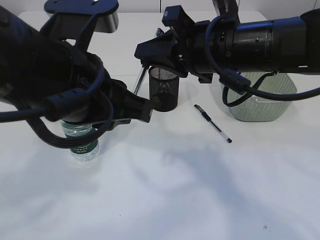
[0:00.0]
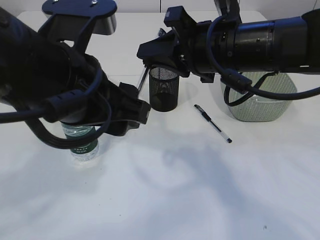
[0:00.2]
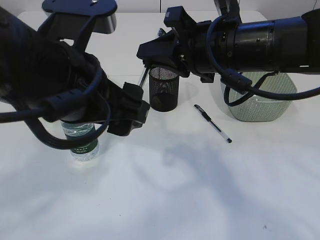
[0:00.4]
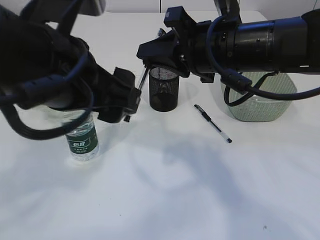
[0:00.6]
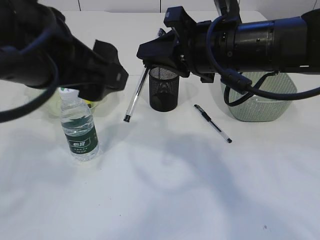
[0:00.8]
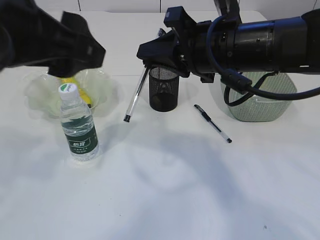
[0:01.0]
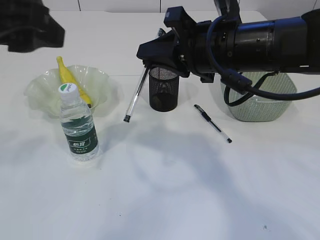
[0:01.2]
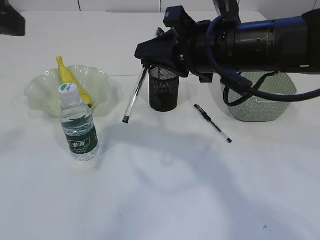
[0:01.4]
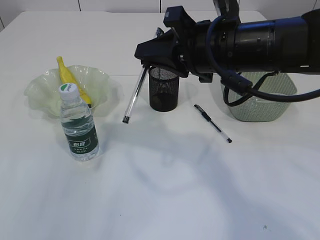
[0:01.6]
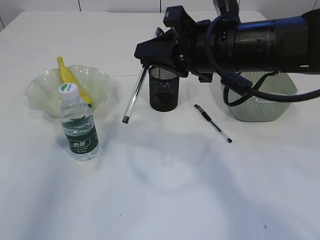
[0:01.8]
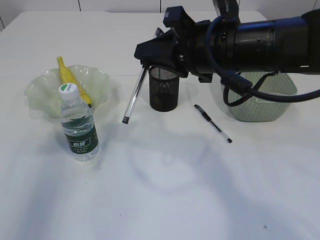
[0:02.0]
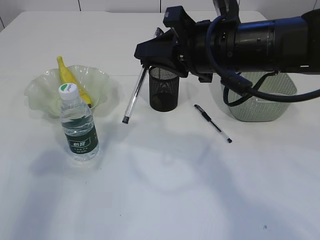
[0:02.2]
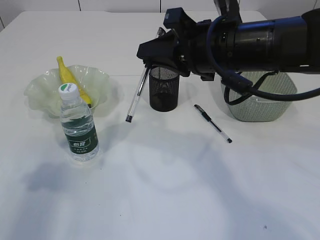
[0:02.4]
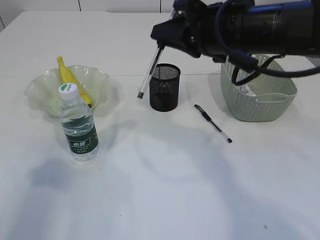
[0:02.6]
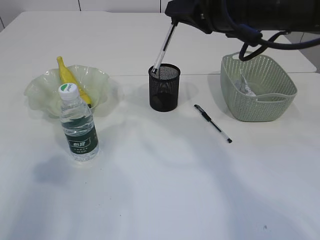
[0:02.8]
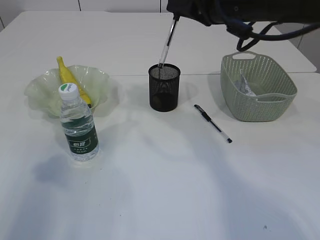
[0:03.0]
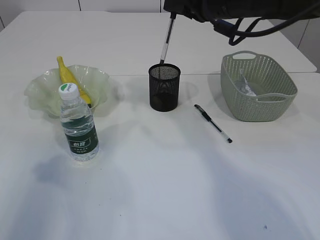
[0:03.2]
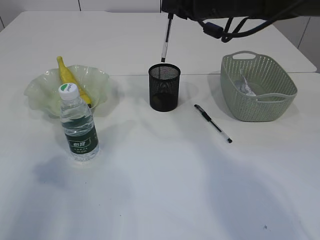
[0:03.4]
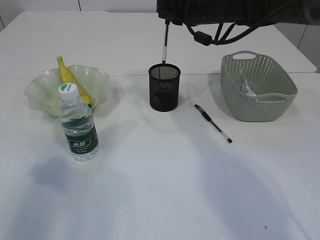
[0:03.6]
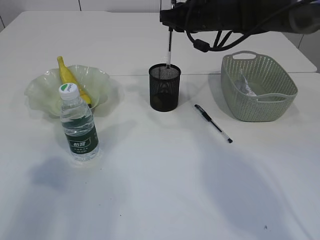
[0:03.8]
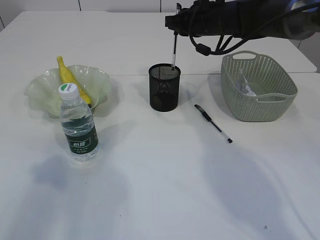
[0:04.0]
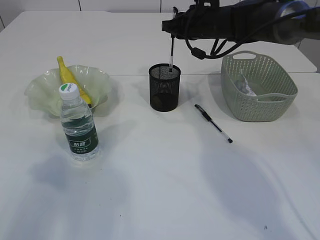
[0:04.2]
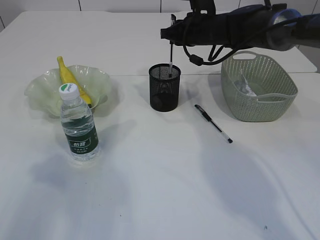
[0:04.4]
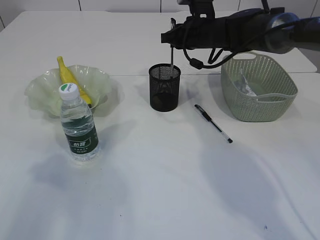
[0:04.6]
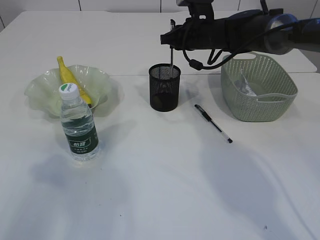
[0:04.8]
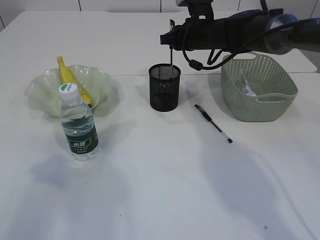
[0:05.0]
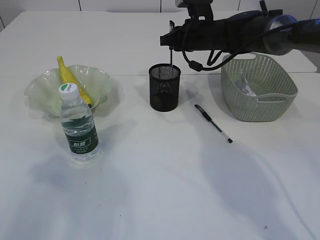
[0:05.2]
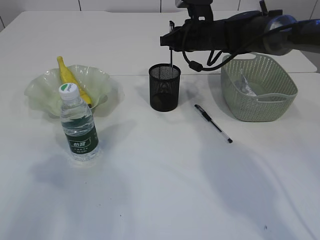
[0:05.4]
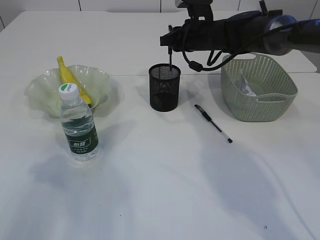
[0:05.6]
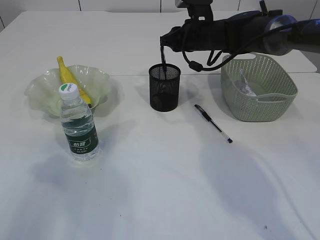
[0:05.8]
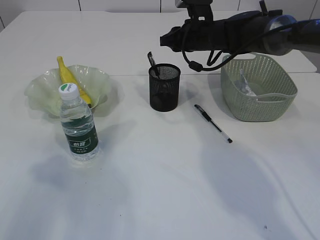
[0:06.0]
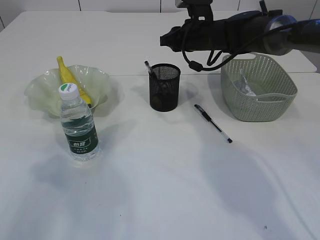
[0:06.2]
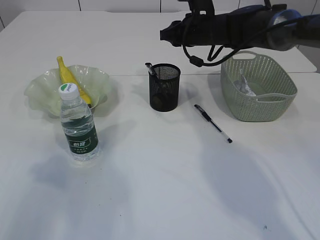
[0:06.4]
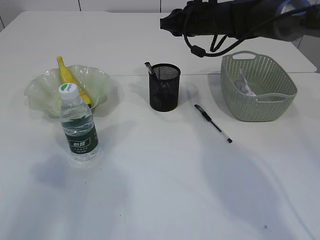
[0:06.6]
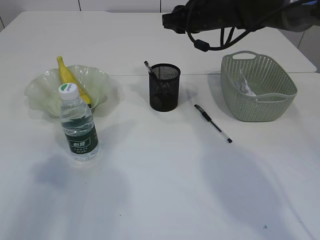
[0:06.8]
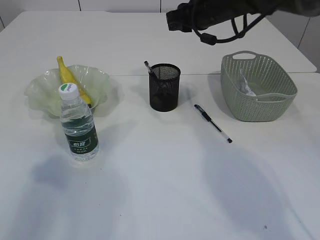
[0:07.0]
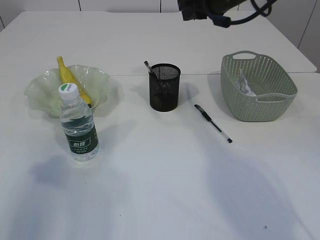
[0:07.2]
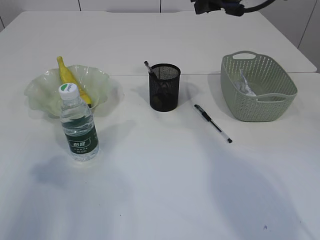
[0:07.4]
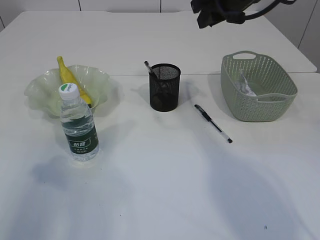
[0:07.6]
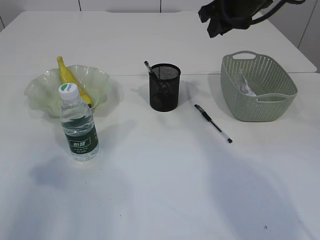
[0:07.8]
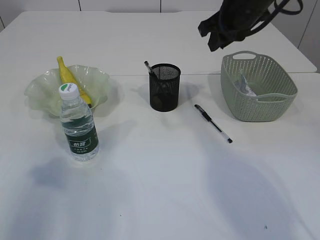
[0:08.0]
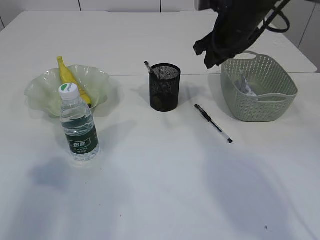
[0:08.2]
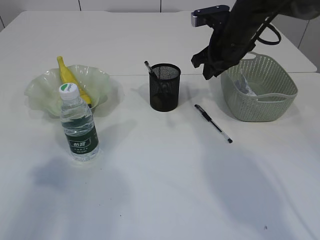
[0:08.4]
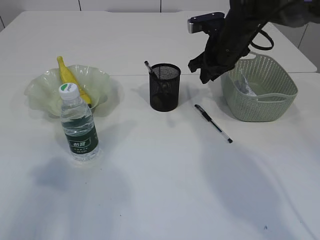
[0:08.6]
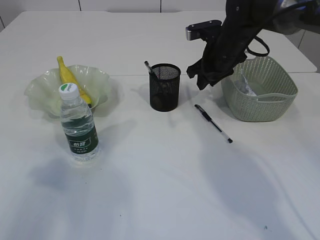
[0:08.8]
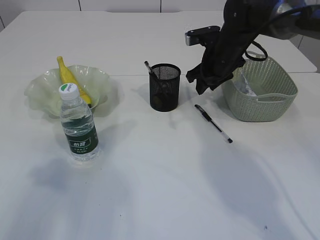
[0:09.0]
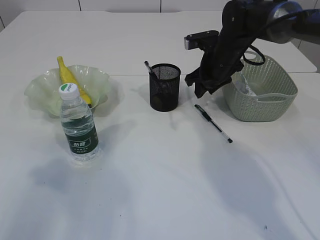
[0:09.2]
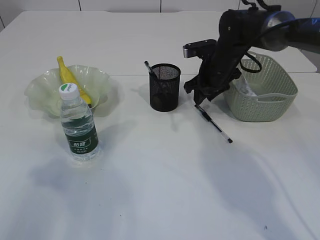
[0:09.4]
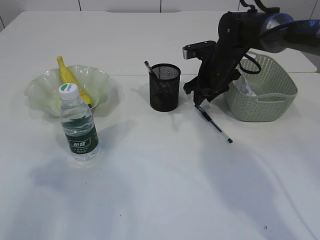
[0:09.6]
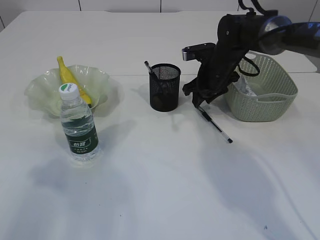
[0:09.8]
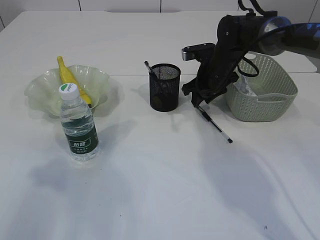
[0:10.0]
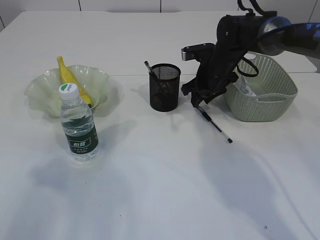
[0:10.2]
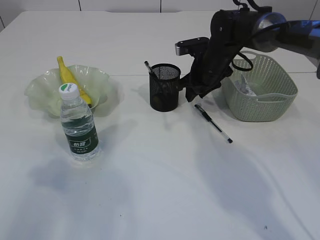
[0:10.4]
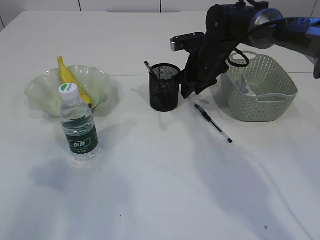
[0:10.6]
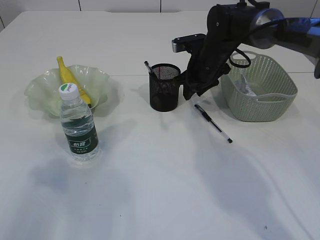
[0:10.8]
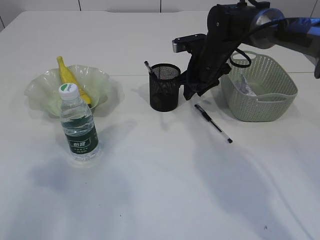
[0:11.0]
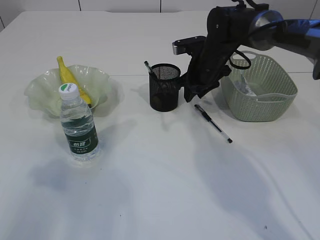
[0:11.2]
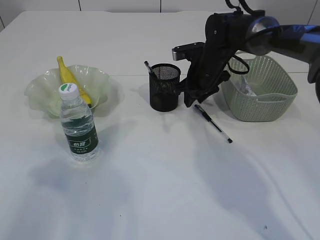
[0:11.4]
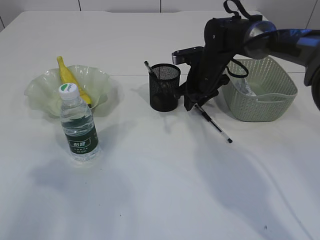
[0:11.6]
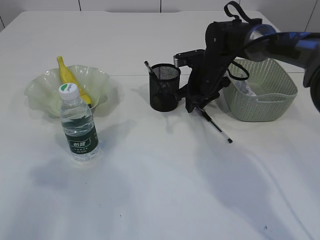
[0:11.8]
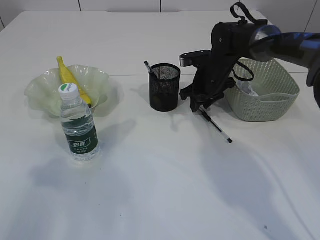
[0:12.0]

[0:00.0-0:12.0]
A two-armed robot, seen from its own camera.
Step, 0:00.8 to 0:06.2: Place the pen into the pen holder.
0:00.0 to 0:01.6: The left gripper goes about 20 cm to the left and upward, and opens.
0:01.6 to 0:03.0: The left gripper shifts roughly 10 cm downward and to the left; the right gripper goes about 5 cm forward.
0:03.0 to 0:04.4: The right gripper goes some 20 cm forward and downward.
0:04.4 to 0:06.0: The grippers make only small movements.
0:06.0 to 0:07.6: The right gripper travels upward and backward by approximately 15 cm.
0:07.6 to 0:09.0: The right gripper is displaced downward by some 15 cm.
0:09.0 to 0:12.0: The grippers move only a little.

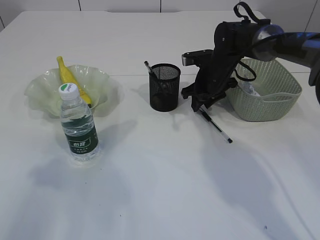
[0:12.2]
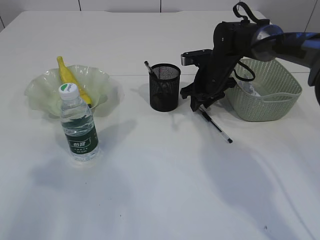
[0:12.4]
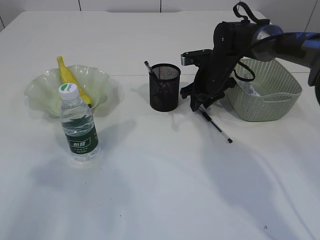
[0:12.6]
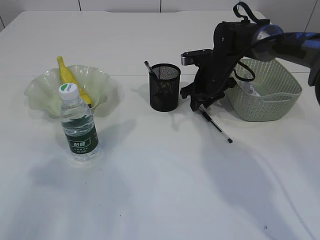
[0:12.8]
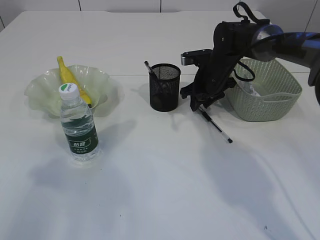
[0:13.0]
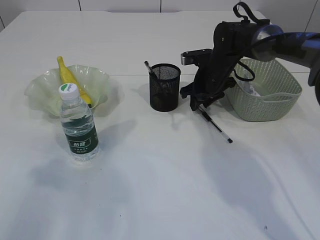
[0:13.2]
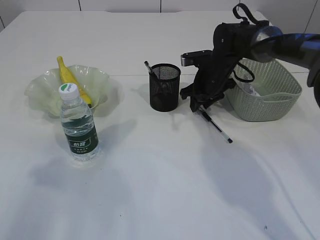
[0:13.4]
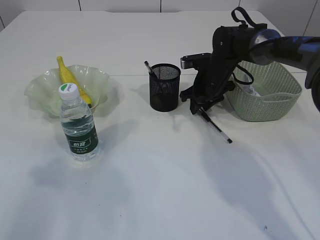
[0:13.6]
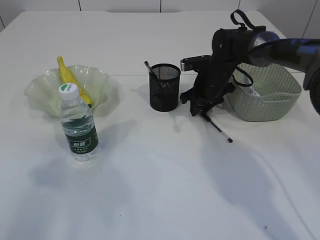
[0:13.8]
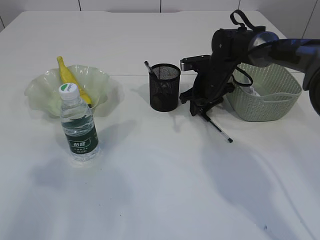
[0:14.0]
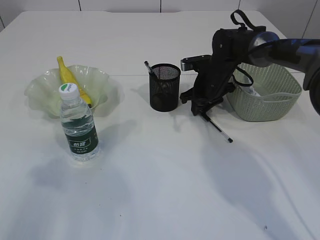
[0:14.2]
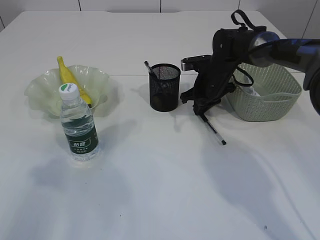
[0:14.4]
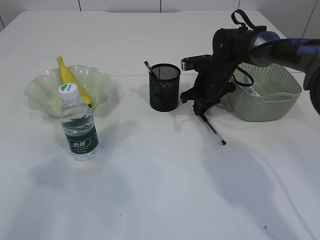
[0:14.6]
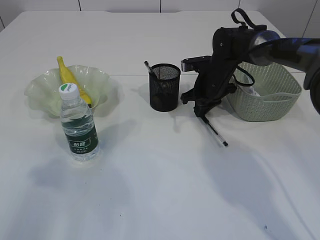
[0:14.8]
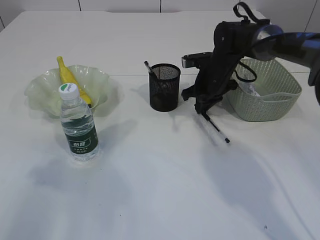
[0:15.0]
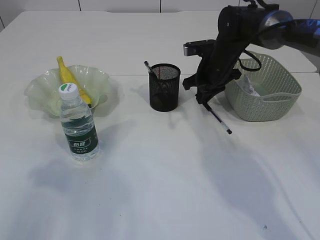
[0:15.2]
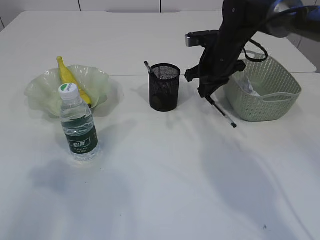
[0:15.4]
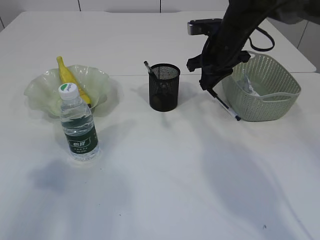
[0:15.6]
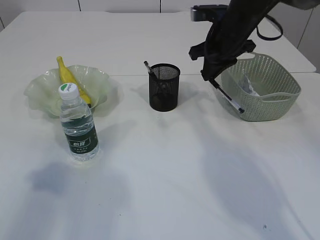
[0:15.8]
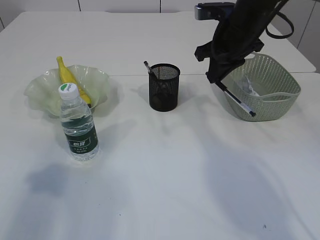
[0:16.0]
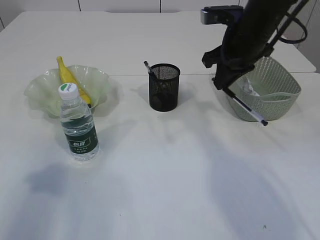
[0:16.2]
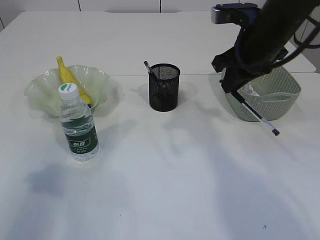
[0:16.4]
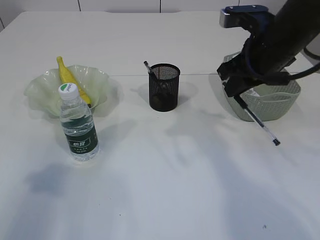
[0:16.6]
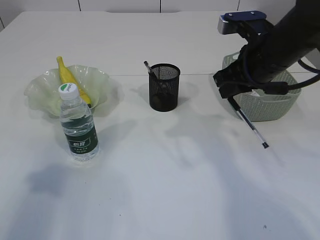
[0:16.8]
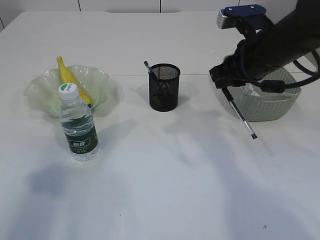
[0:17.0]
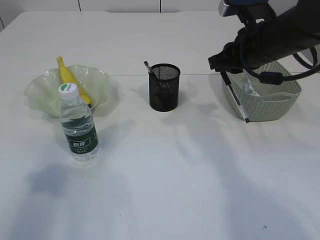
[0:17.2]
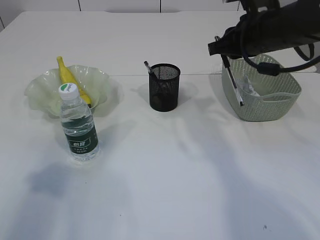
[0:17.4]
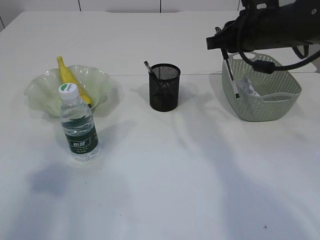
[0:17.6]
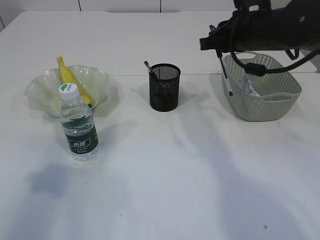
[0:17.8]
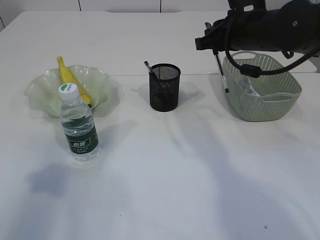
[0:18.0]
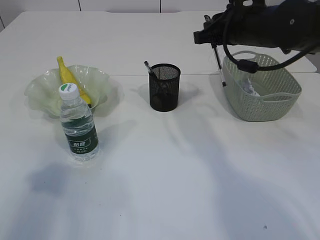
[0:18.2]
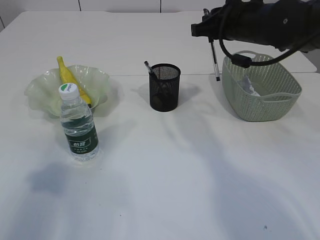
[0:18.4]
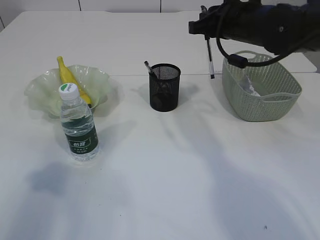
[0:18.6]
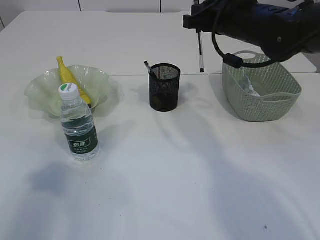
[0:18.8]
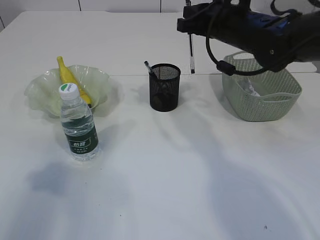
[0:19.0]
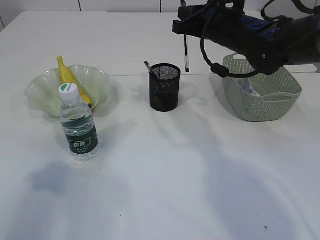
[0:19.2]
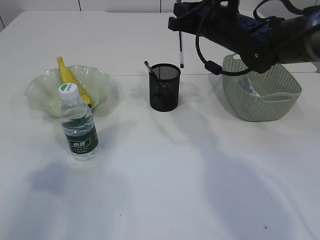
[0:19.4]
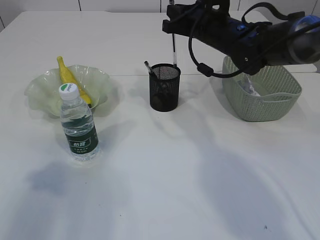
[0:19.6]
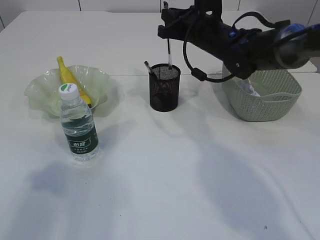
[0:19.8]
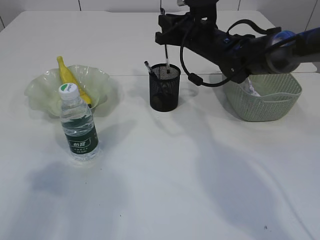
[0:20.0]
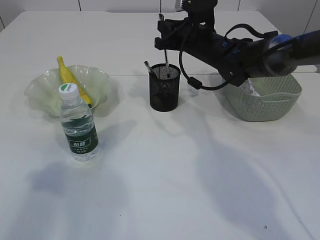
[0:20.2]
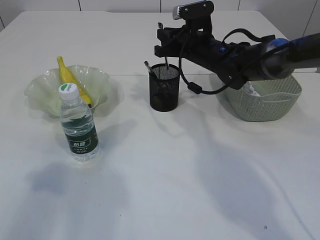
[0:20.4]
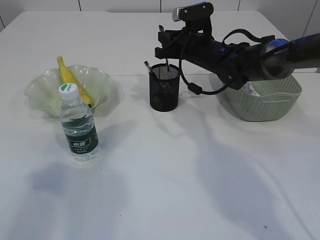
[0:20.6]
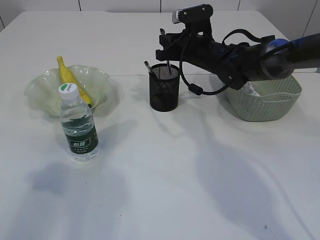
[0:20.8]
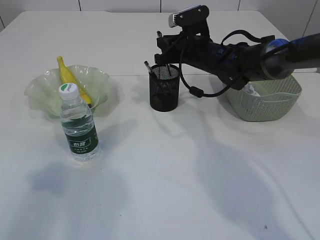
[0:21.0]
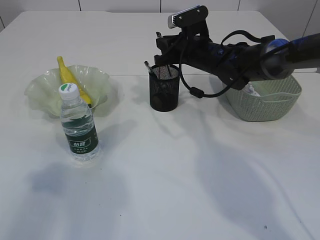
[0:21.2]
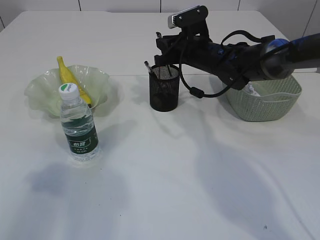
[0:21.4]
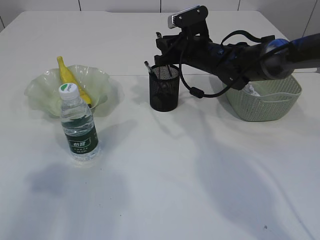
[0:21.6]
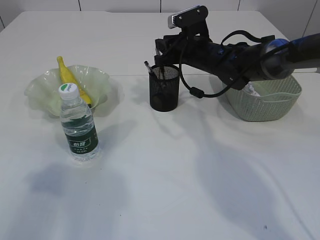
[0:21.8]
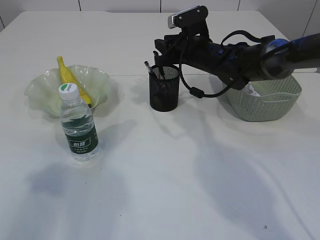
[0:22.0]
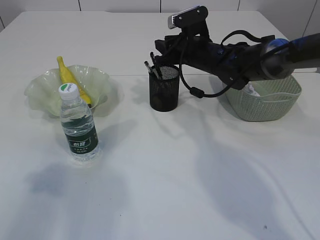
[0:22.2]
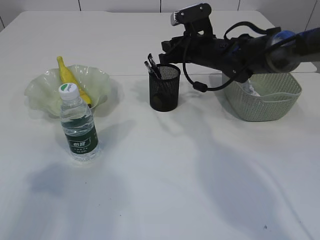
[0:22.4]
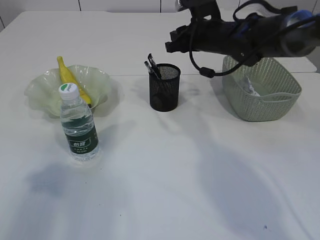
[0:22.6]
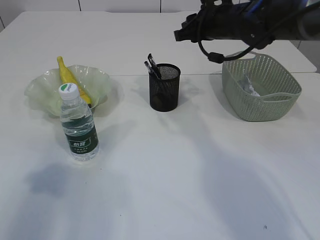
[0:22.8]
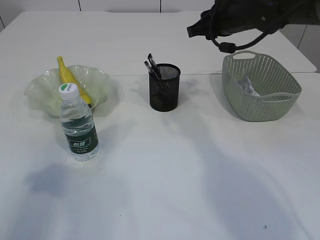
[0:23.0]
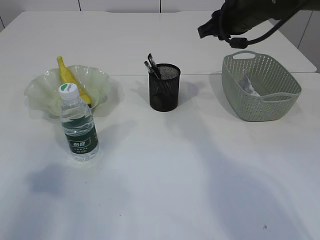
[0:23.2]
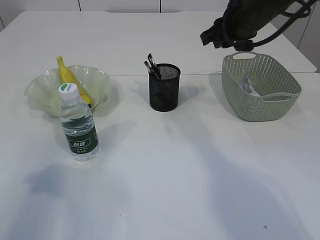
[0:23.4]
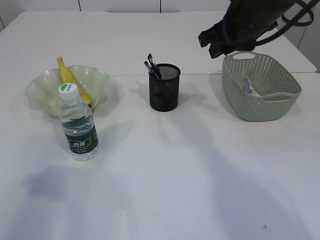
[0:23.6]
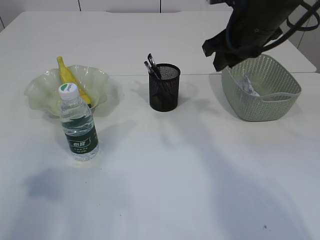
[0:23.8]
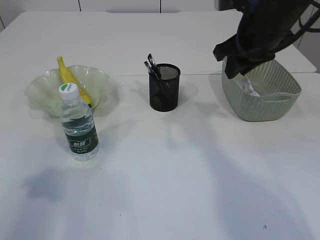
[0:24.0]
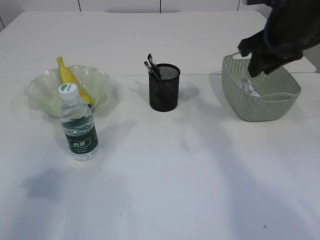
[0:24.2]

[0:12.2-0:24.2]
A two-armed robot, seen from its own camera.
Step, 0:12.2 to 0:15.6: Pick up the pen with right arm.
Step, 0:15.8 to 0:22.6: Place the pen into the pen holder.
0:12.2 to 0:13.8: The two grippers keep their place.
0:13.8 to 0:15.2: The right gripper closes up.
0:15.2 to 0:16.6: The right gripper shifts roughly 20 cm backward and upward.
0:16.6 to 0:18.2: The right gripper changes place by about 5 cm.
0:18.2 to 0:19.8: The right gripper shifts approximately 5 cm forward.
0:19.8 to 0:21.2: The grippers stay close to where they were, moving slightly.
0:21.2 to 0:22.6: The grippers make only small movements.
0:22.6 to 0:24.2: The right gripper moves backward, upward and to the right, about 15 cm.
